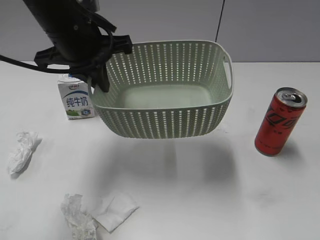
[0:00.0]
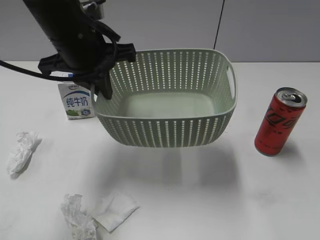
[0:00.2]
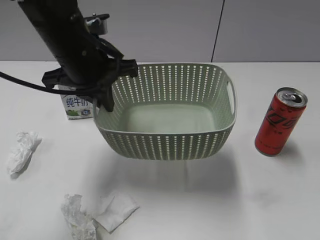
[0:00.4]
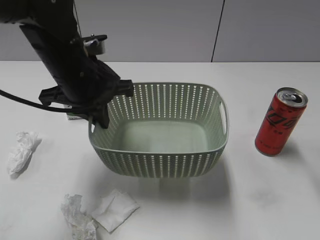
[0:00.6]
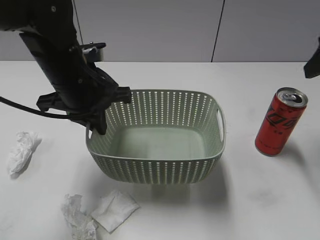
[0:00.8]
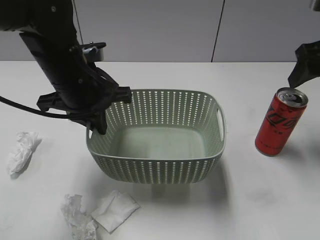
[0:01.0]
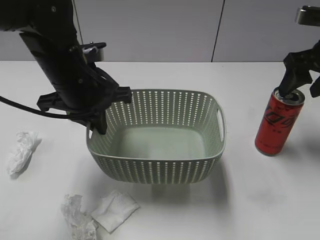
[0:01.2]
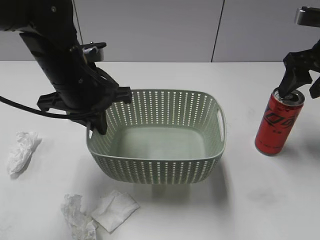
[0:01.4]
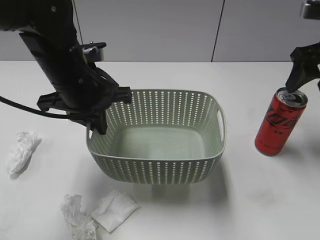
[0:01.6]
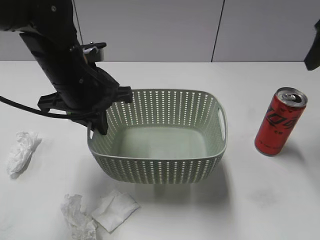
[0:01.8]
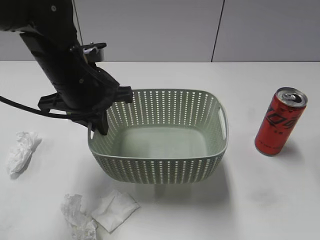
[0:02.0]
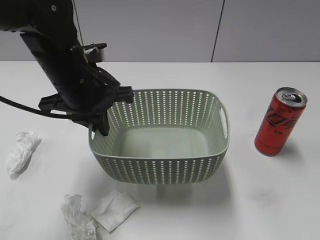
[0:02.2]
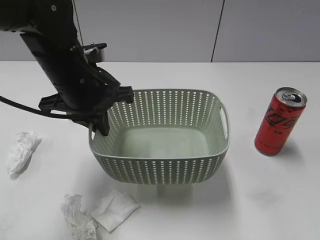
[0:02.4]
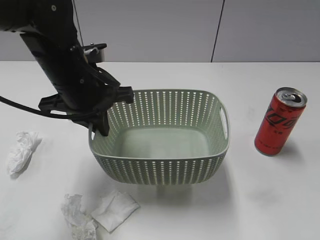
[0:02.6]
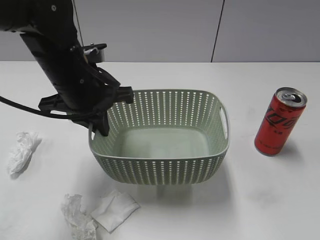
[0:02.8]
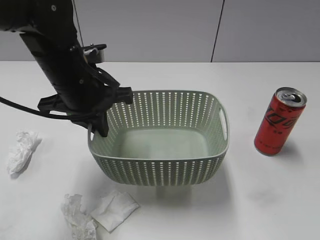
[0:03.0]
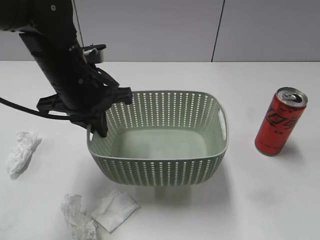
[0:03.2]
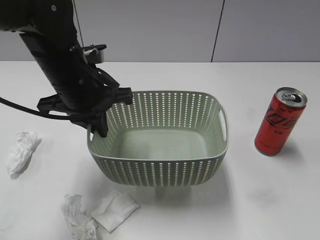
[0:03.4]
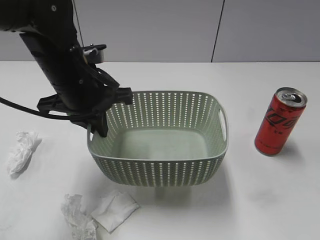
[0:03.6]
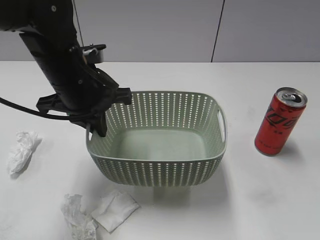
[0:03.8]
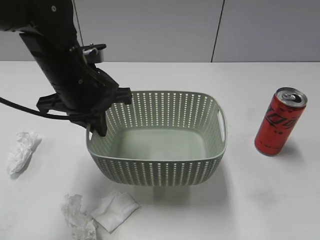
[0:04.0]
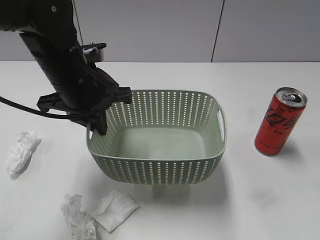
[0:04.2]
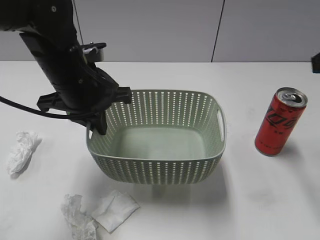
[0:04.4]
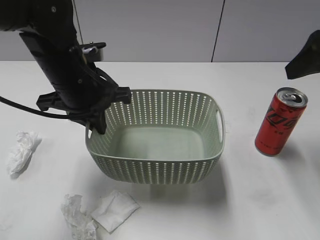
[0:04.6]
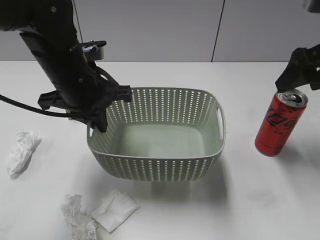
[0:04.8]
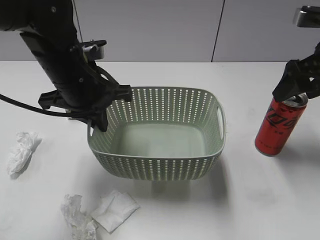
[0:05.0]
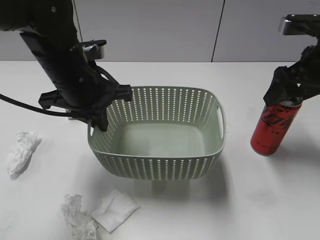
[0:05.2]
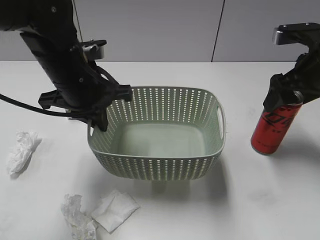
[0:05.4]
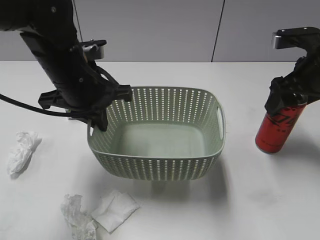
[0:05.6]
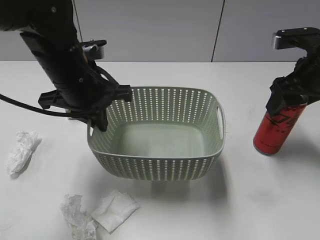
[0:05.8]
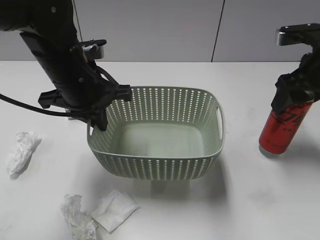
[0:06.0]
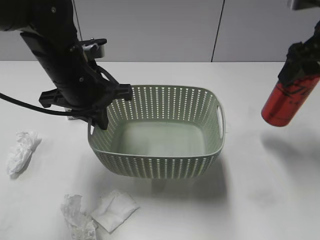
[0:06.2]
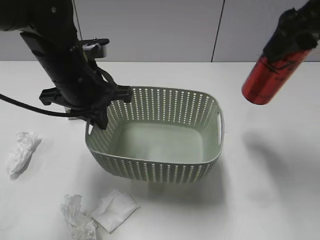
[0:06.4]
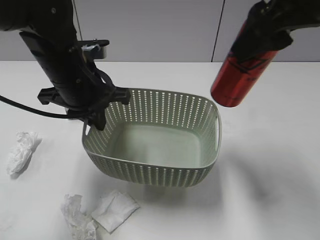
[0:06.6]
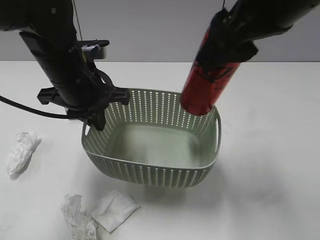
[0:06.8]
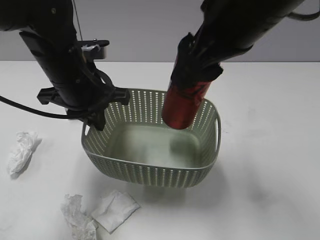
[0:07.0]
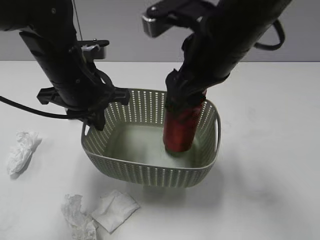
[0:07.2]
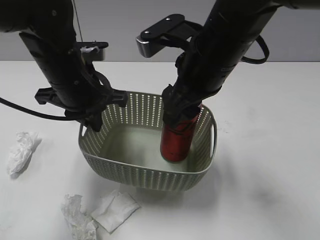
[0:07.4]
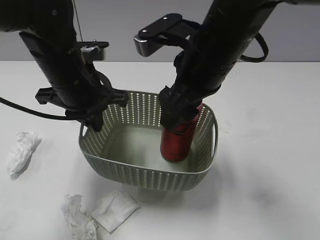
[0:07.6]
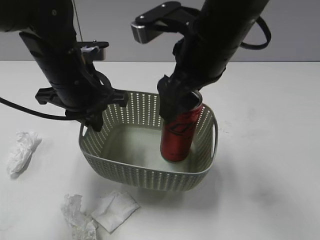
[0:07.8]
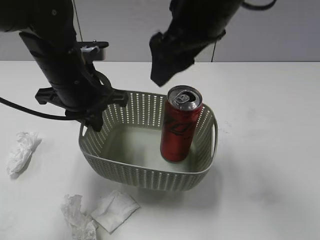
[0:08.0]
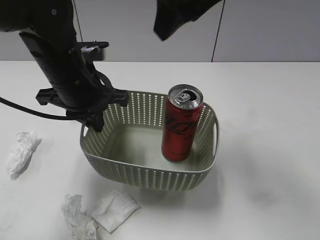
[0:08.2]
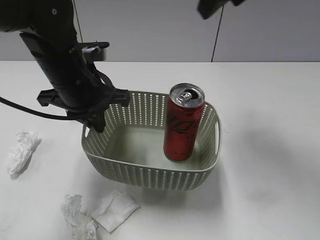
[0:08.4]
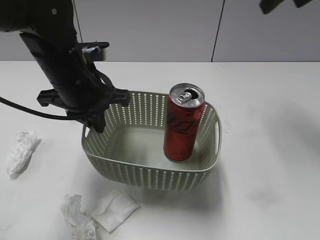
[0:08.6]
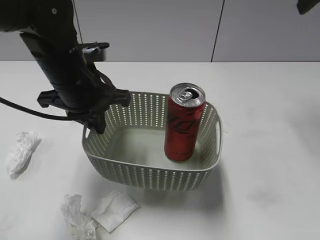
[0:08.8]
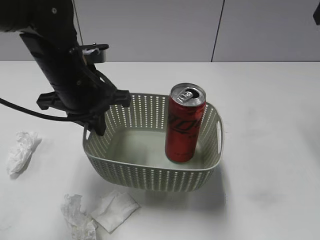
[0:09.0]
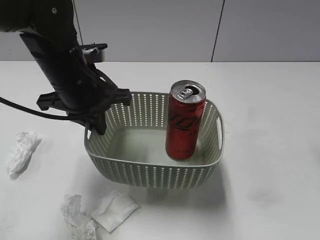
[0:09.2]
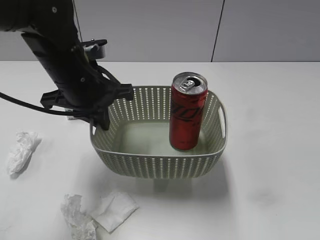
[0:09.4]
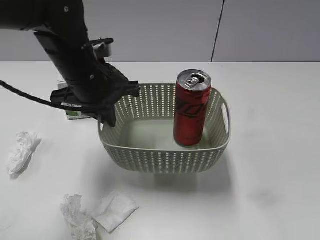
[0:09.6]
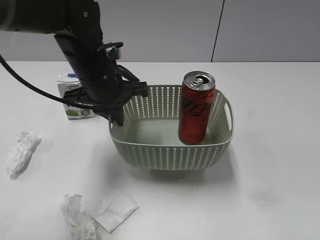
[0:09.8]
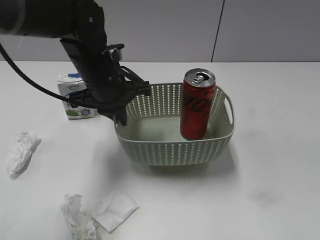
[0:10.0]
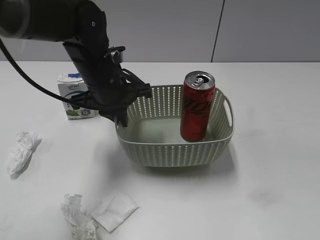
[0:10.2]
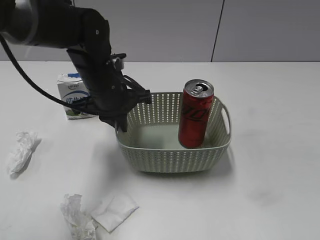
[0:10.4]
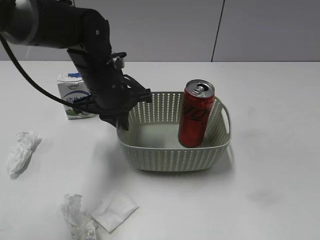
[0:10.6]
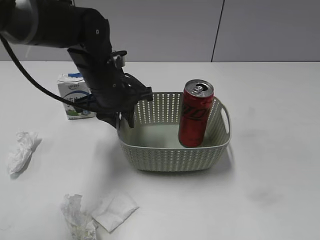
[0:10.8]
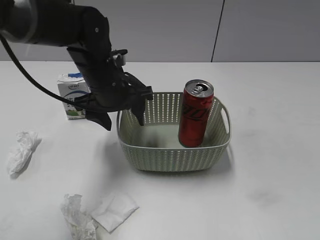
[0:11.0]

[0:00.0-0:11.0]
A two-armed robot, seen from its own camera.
Step, 0:00.8 to 0:05.8: Grasp the cola can with right gripper.
Step, 0:06.0 to 0:07.8: Place the cola can in the basket with right gripper.
0:00.0 to 0:01.6: The left gripper shifts about 5 cm downward. The right gripper goes roughly 30 cm forward.
0:01.6 to 0:03.2: The right gripper heads backward, covering approximately 35 cm.
0:03.2 to 0:04.8: The right gripper heads forward, covering about 30 cm, and opens its fingers.
0:04.8 to 0:06.2: The right gripper closes up.
0:06.2 to 0:07.8: The right gripper travels to the left by approximately 20 cm, and opens.
0:07.8 to 0:09.4: The right gripper shifts about 25 cm to the right and upward, and closes.
0:09.4 to 0:11.0: The left gripper changes place by roughly 5 cm, and opens. The right gripper goes approximately 25 cm backward and downward.

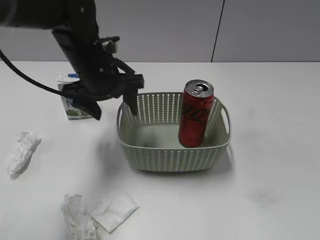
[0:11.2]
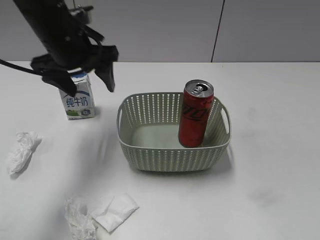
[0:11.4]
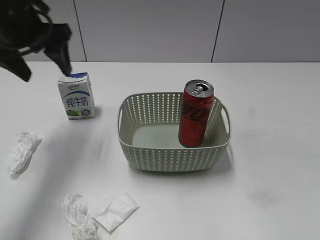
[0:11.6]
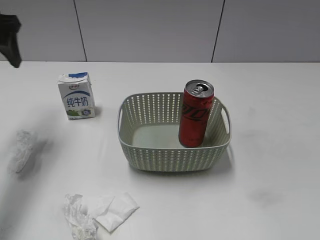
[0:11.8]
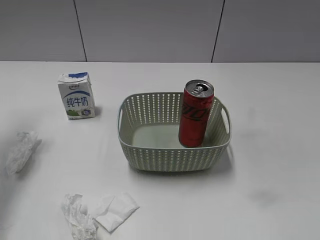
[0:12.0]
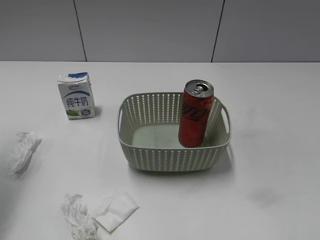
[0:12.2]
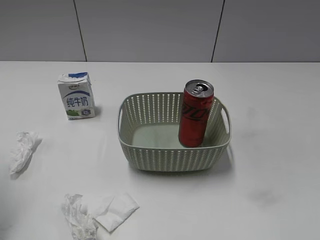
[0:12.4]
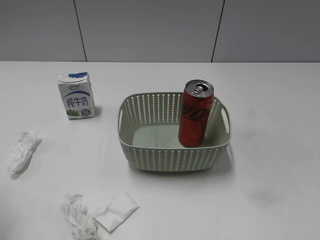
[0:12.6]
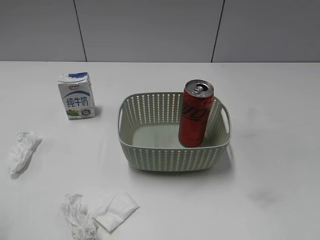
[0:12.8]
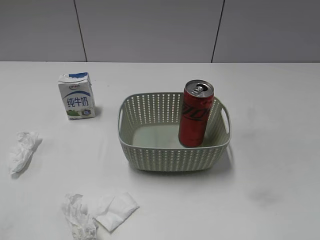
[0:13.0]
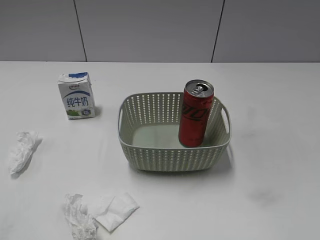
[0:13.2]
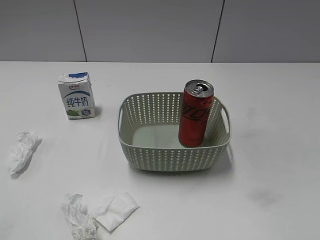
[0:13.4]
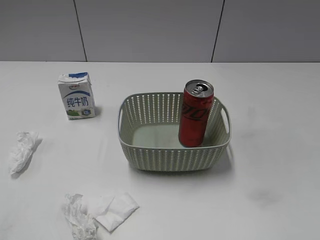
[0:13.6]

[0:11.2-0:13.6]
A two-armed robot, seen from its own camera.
0:11.2 to 0:12.4: The left gripper travels to the left, backward and upward by about 30 cm.
0:12.4 to 0:13.6: The left gripper travels backward by roughly 20 cm.
